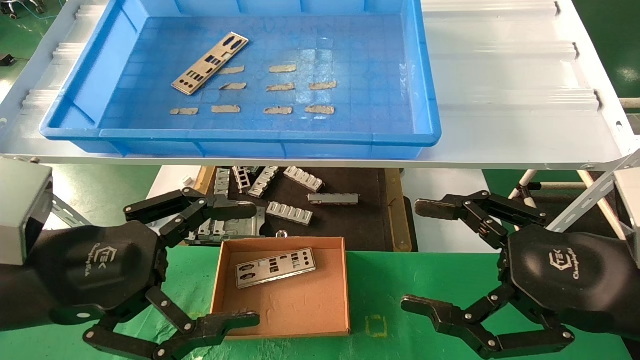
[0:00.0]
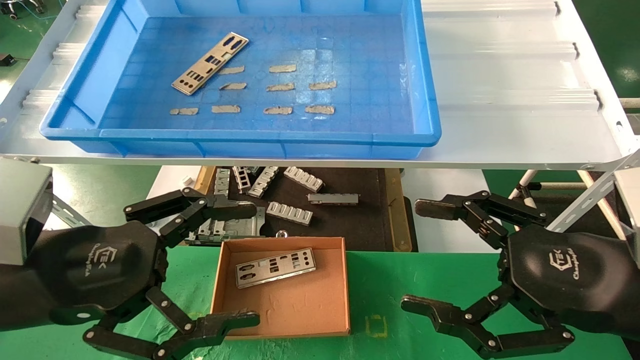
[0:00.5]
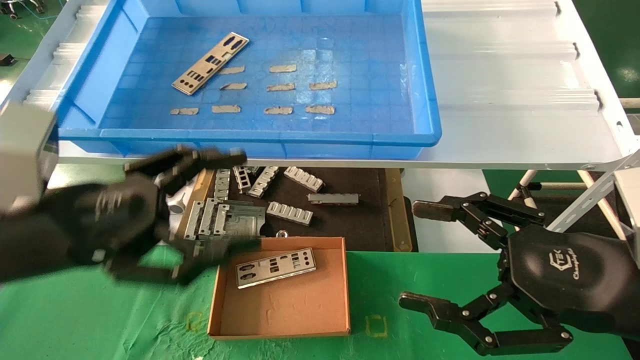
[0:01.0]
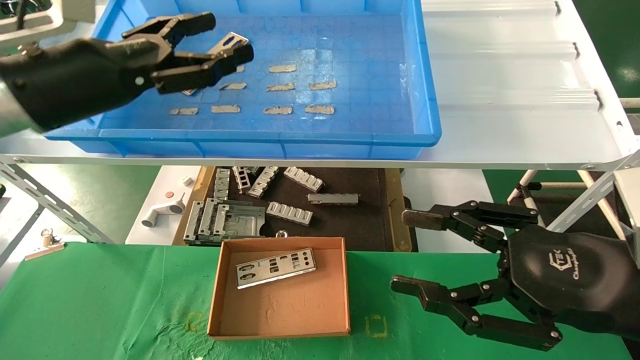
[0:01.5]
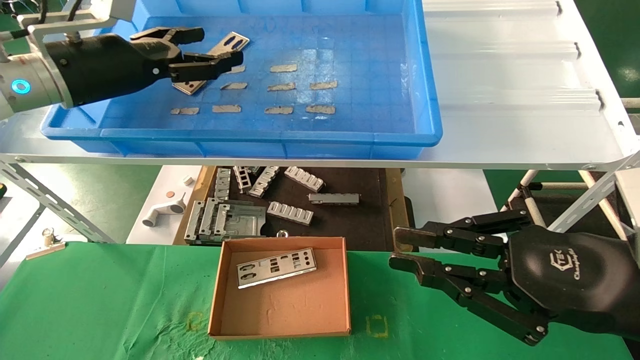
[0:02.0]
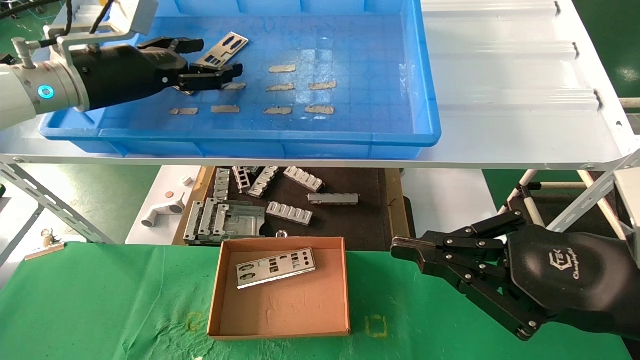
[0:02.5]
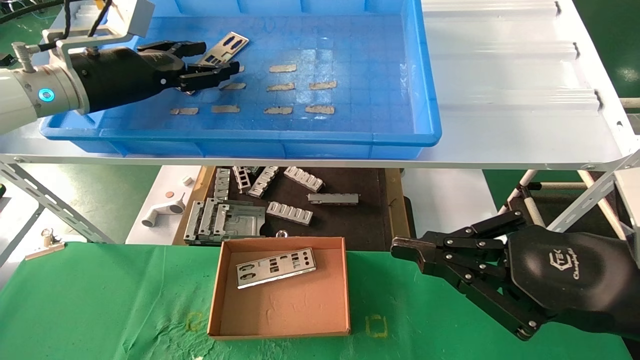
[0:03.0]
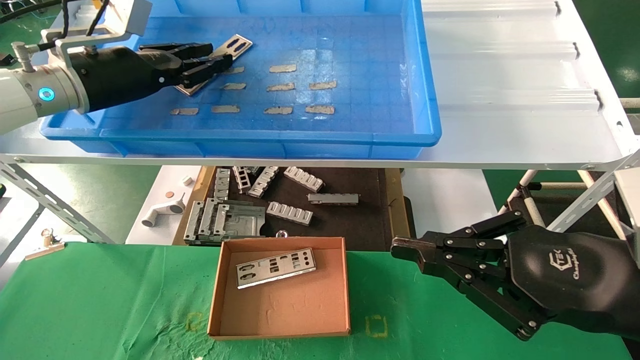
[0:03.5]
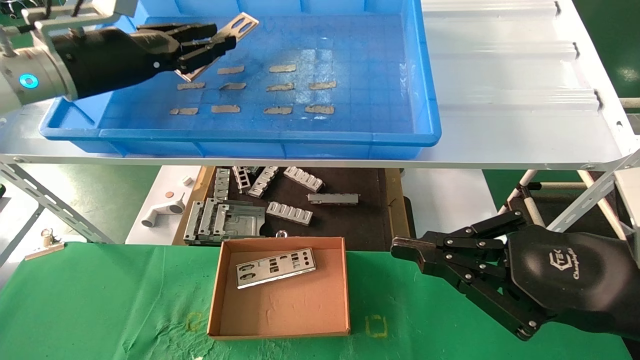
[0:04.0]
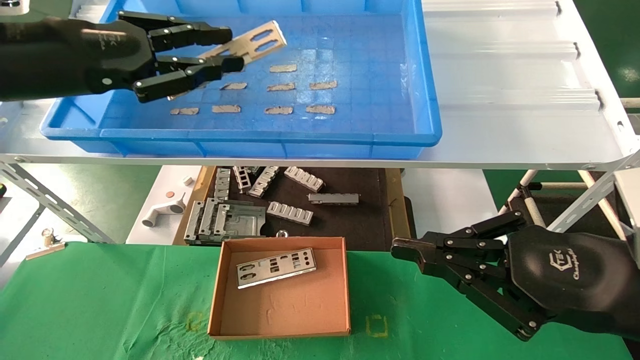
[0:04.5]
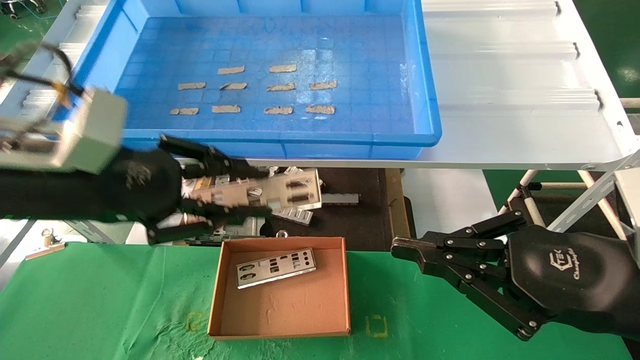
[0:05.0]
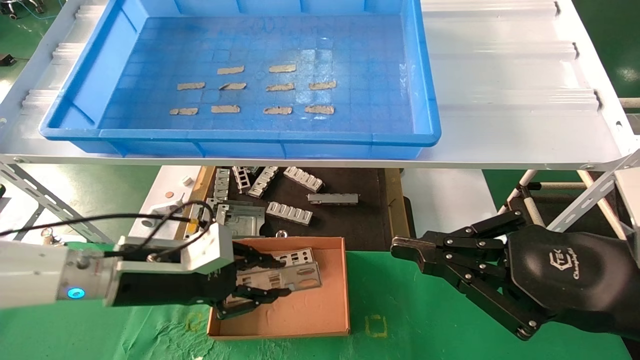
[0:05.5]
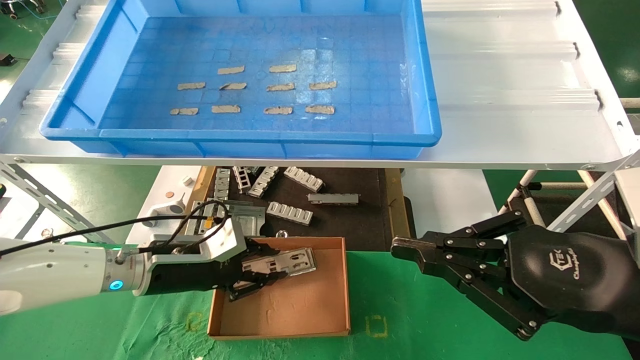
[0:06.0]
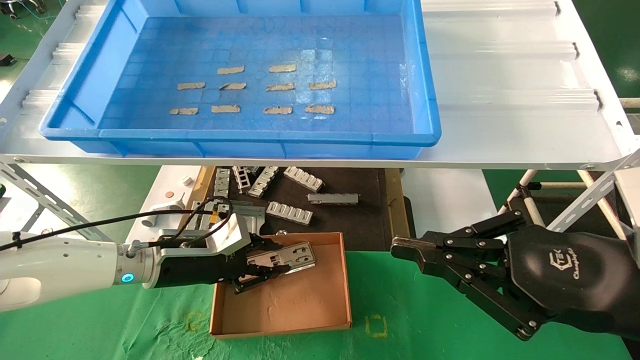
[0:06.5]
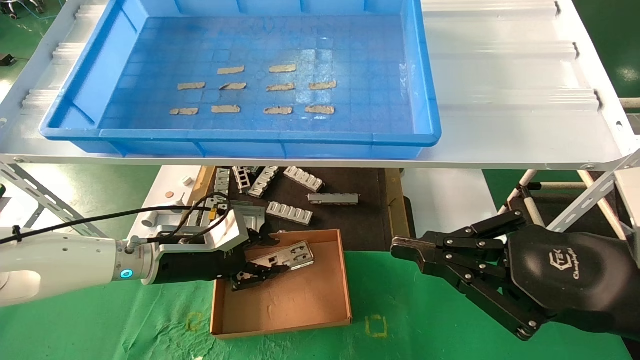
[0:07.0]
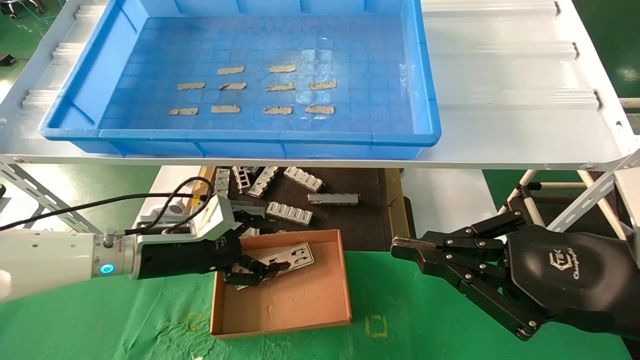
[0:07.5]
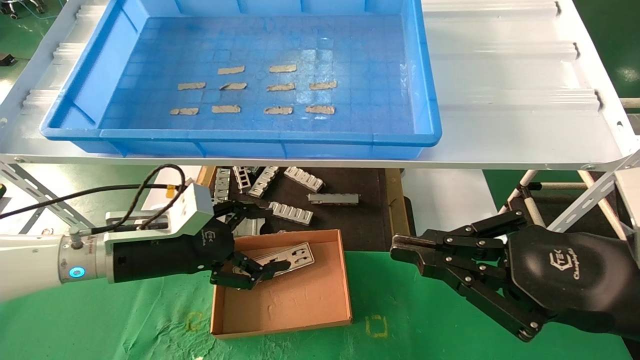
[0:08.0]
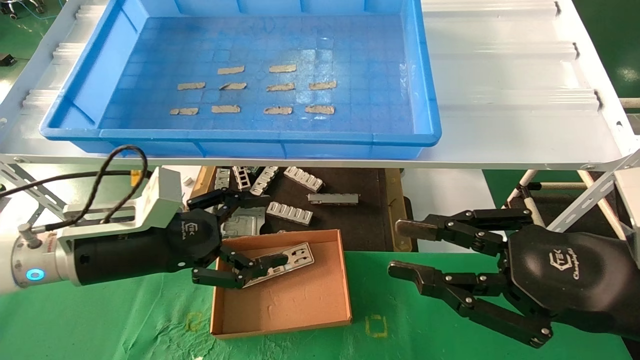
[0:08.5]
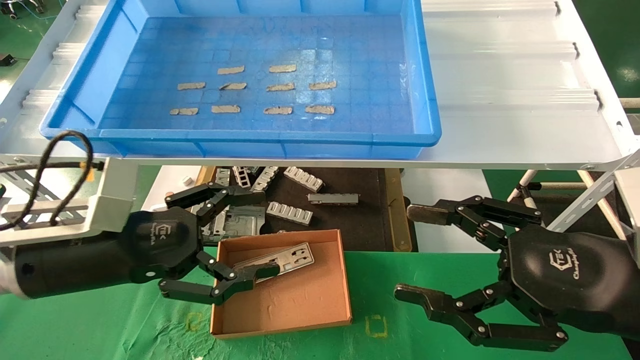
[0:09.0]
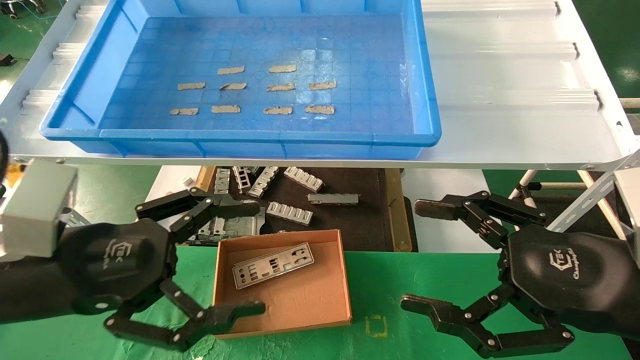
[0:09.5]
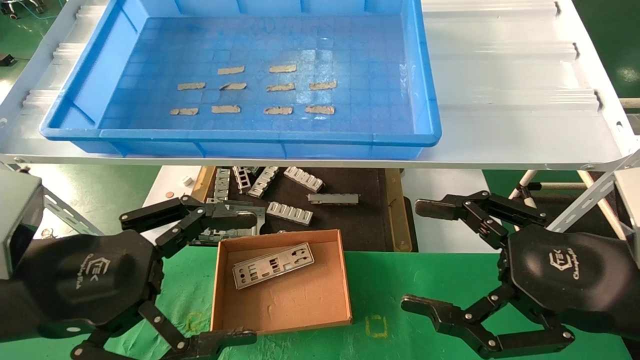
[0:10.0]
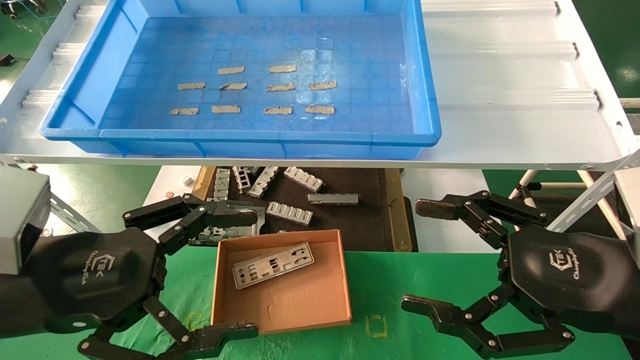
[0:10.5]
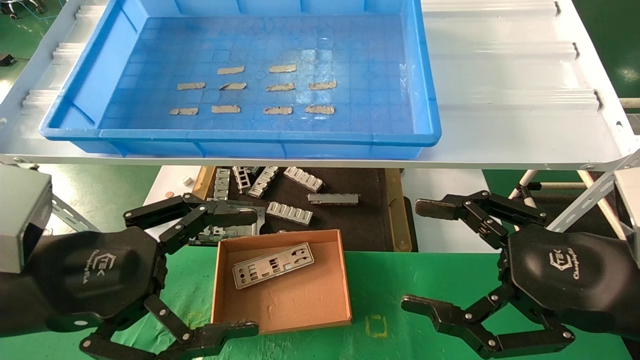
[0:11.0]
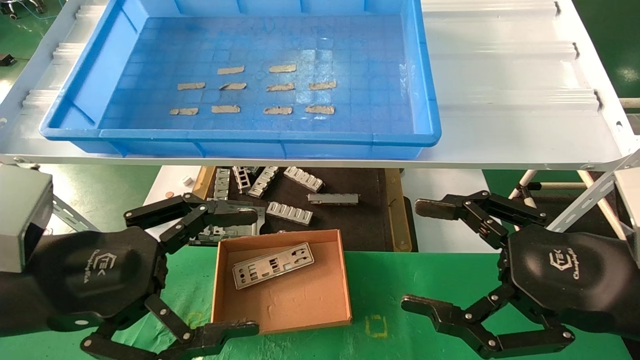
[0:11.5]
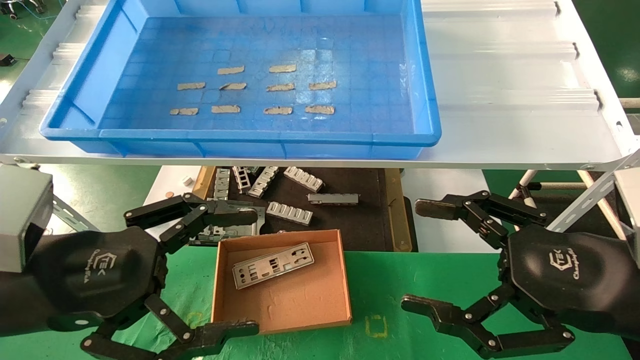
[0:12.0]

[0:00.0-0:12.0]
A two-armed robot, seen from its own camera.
Task of the whole recording: pick up the parts on the tray and put them in the cardboard box.
Step, 0:01.0 to 0:04.0: Pick up the IO bracket from the container box.
Step, 0:04.5 to 0:07.0: Place the IO bracket into the ingredient slot.
0:00.0 to 0:02.0: The right gripper closes its fingers, while the left gripper heads forward and upward, covering approximately 25 cm.
0:02.0 to 0:04.0: The left gripper closes its fingers.
0:04.0 to 0:06.0: The left gripper goes roughly 25 cm downward.
0:06.0 to 0:08.0: The left gripper opens its fingers.
0:08.0 to 0:10.0: The left gripper shifts some 20 cm backward and upward. The right gripper opens.
0:10.0 to 0:12.0: The two grippers keep their place.

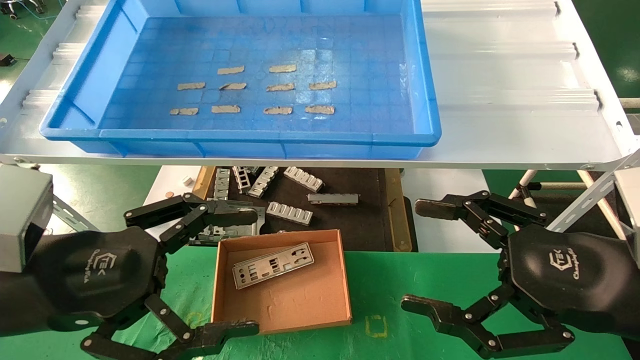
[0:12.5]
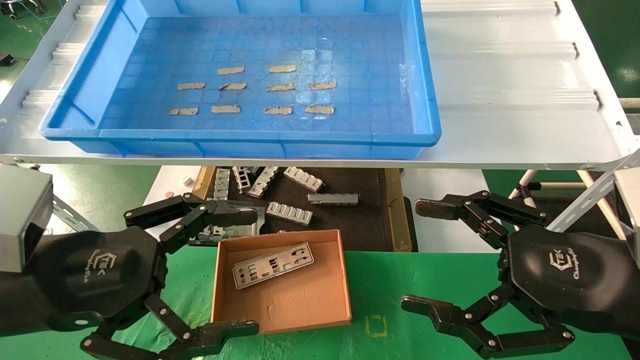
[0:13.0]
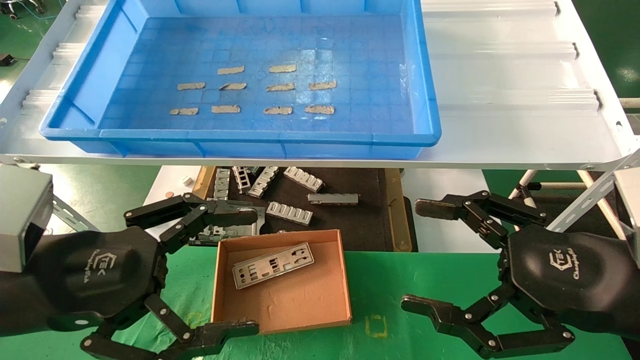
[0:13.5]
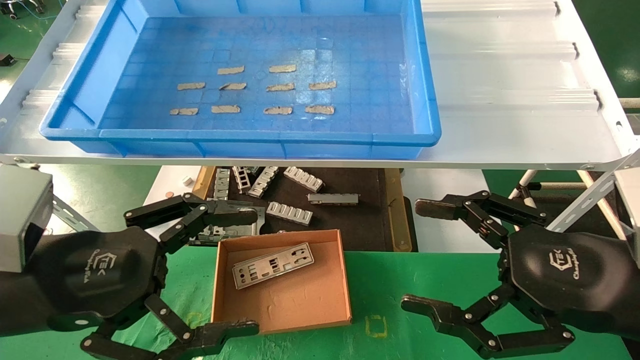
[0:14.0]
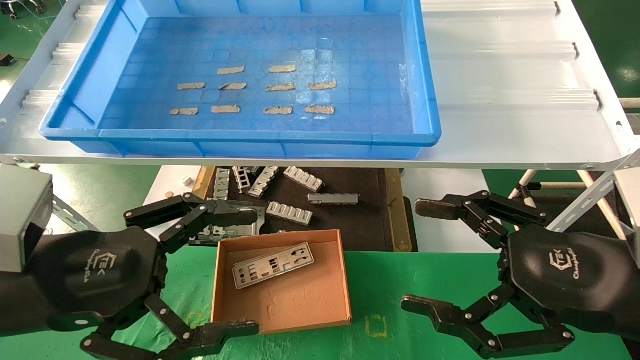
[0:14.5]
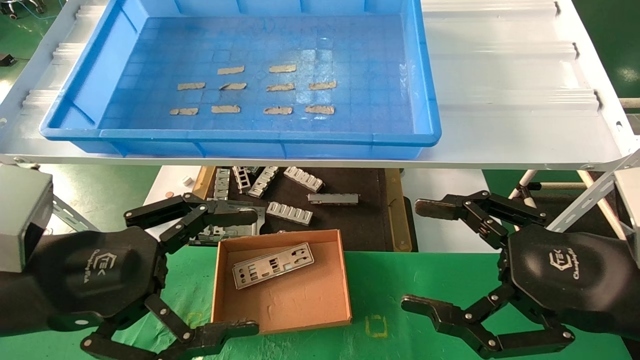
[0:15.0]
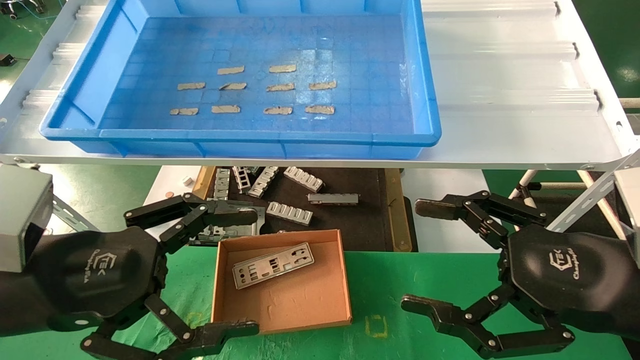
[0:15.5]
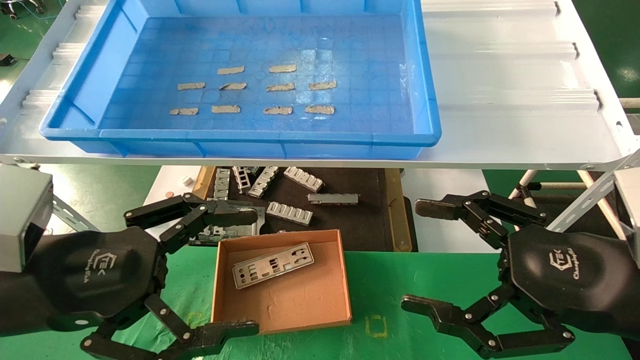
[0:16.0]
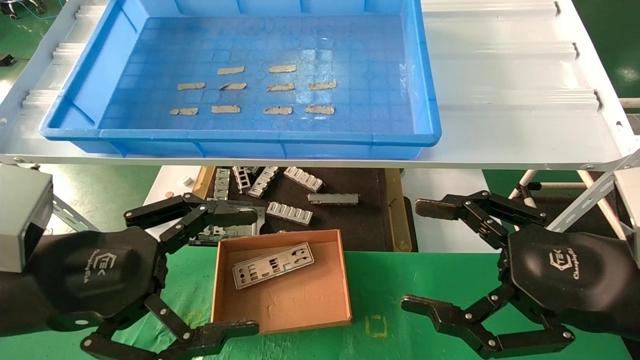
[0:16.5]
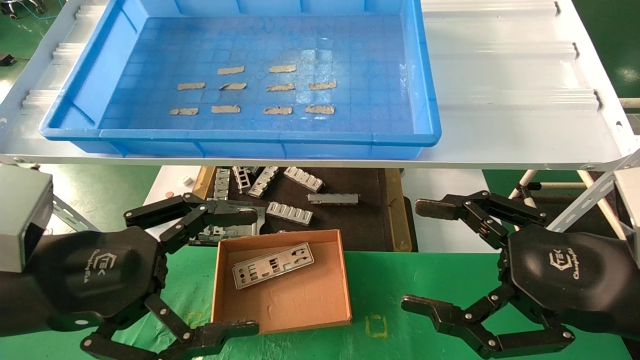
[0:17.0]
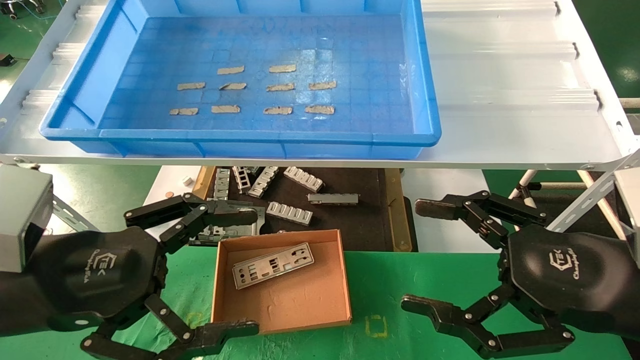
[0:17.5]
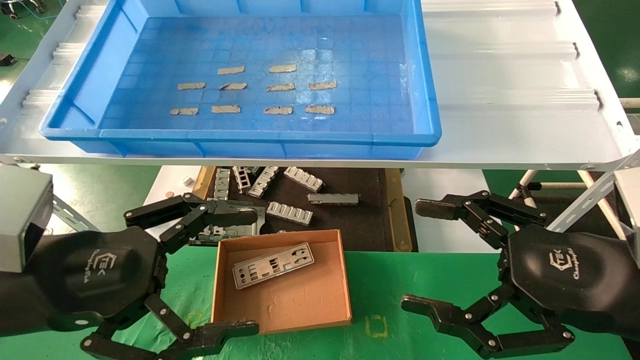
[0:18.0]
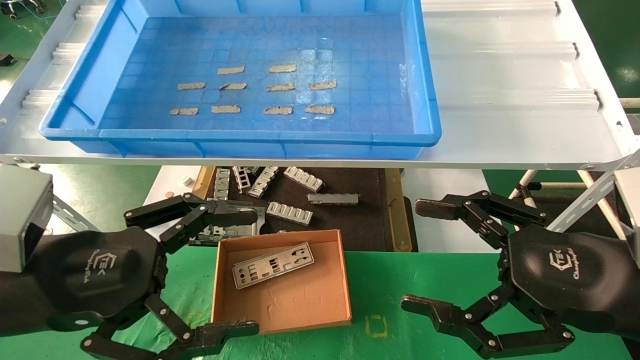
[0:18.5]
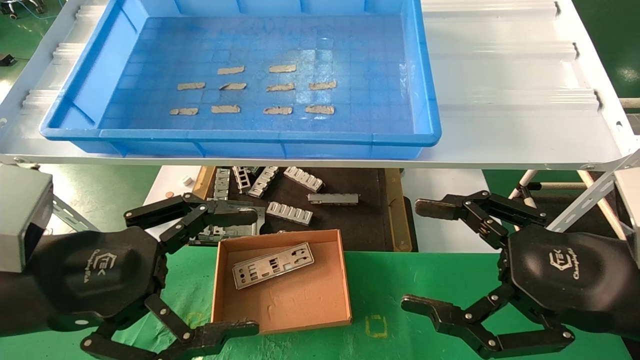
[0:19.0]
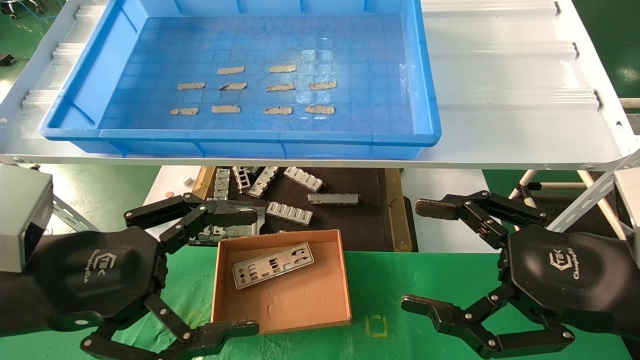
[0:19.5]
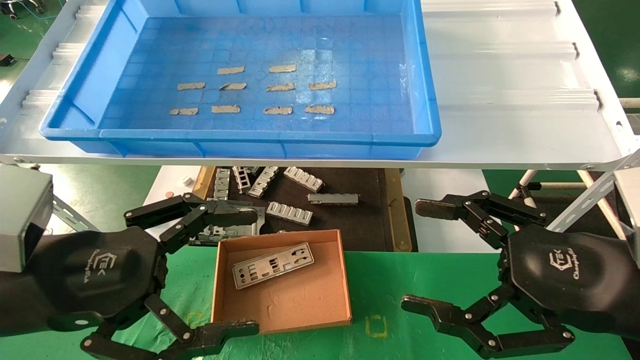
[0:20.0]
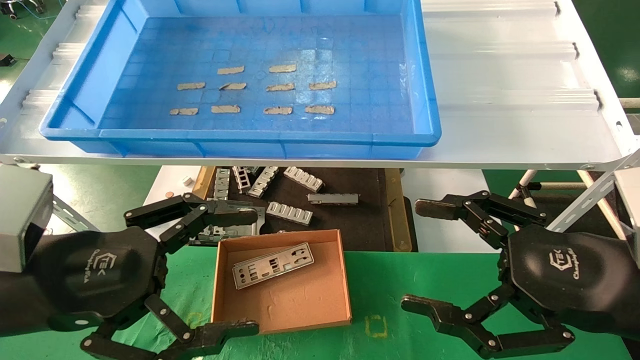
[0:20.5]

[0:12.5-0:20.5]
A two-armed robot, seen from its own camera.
Task of the whole recording: pick up the parts on the tray and put them in the cardboard box.
0:12.5 to 0:20.5: Both grippers stay about where they are.
